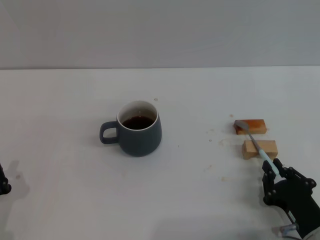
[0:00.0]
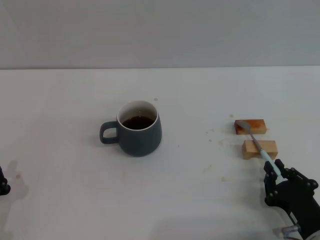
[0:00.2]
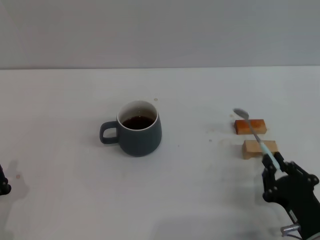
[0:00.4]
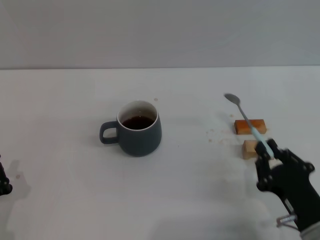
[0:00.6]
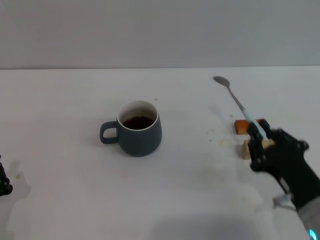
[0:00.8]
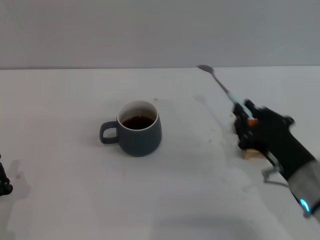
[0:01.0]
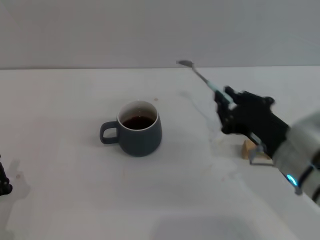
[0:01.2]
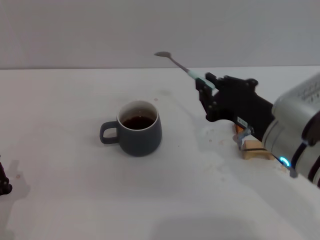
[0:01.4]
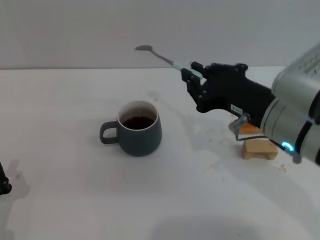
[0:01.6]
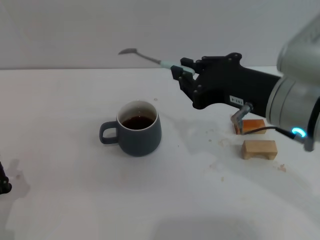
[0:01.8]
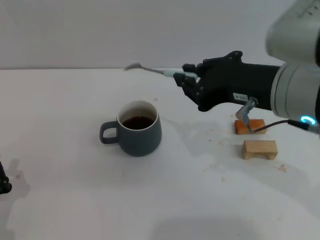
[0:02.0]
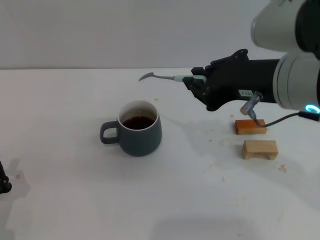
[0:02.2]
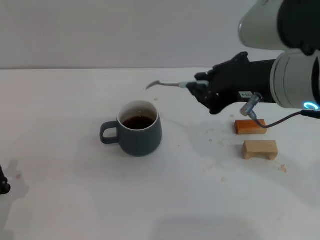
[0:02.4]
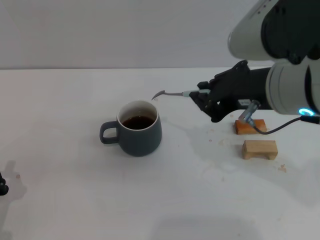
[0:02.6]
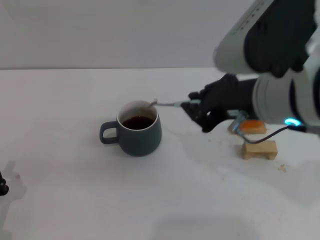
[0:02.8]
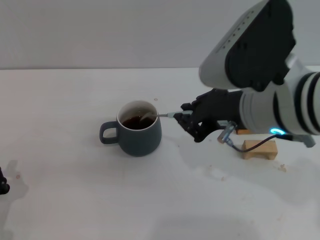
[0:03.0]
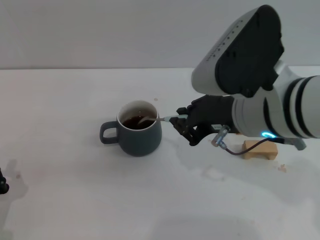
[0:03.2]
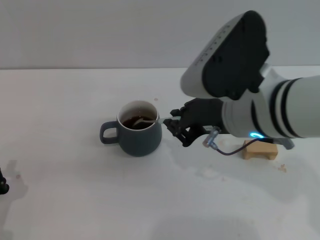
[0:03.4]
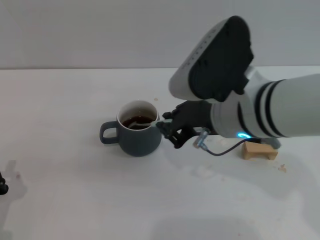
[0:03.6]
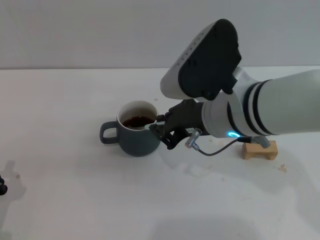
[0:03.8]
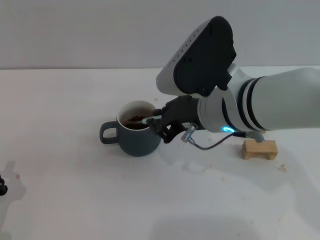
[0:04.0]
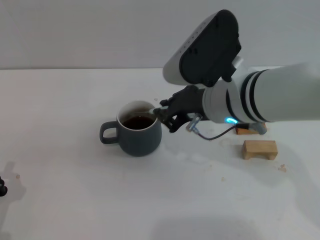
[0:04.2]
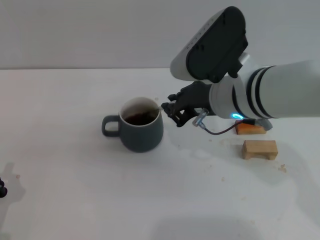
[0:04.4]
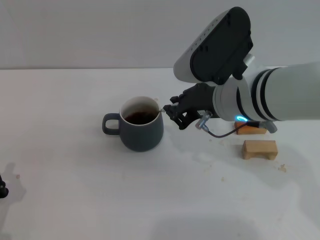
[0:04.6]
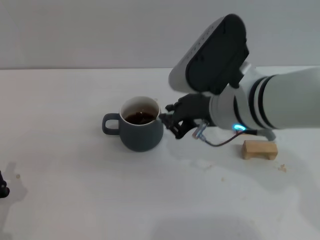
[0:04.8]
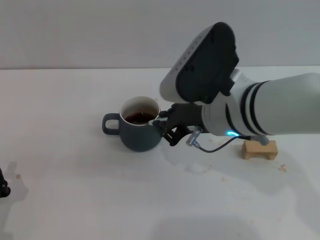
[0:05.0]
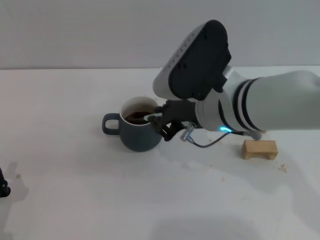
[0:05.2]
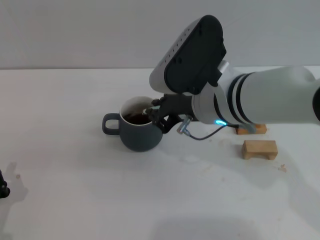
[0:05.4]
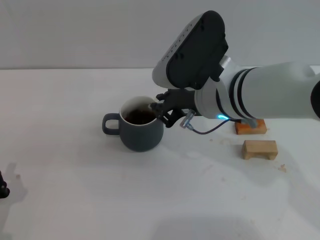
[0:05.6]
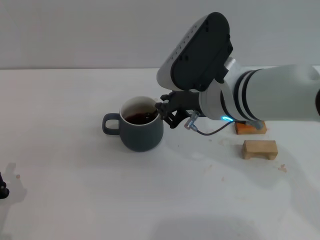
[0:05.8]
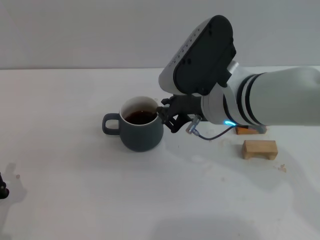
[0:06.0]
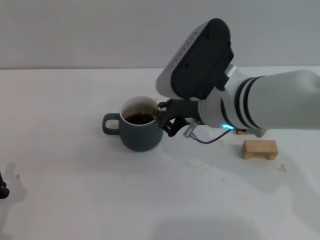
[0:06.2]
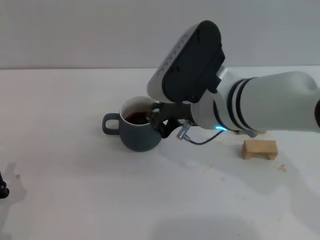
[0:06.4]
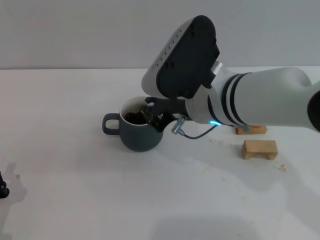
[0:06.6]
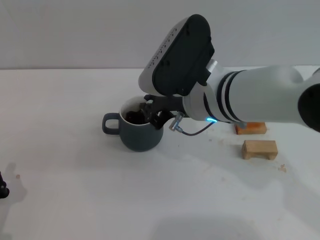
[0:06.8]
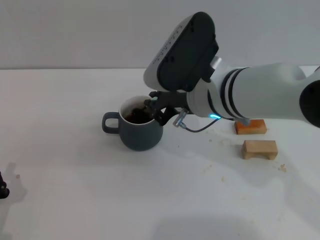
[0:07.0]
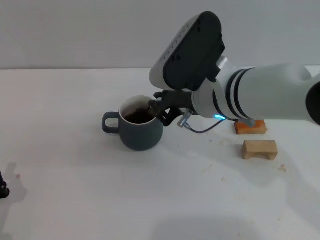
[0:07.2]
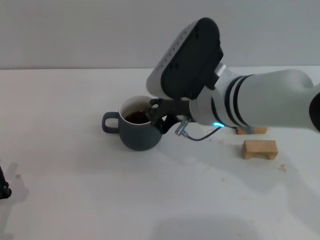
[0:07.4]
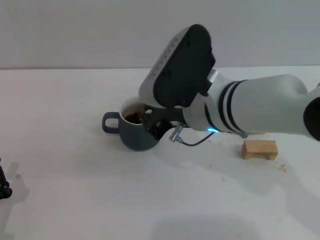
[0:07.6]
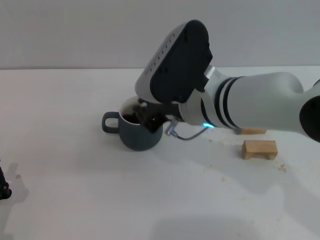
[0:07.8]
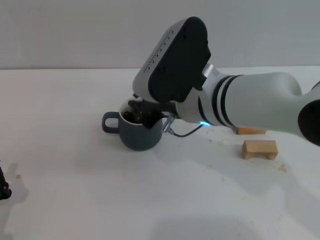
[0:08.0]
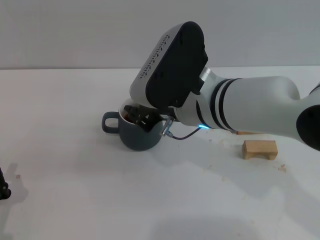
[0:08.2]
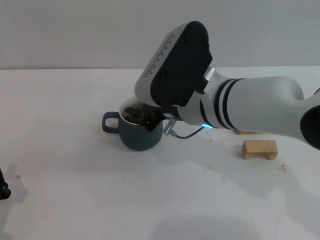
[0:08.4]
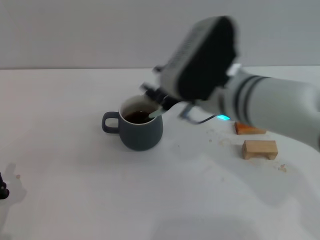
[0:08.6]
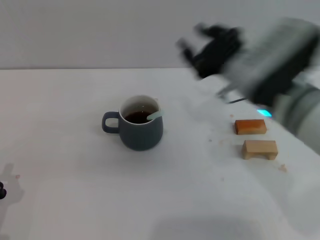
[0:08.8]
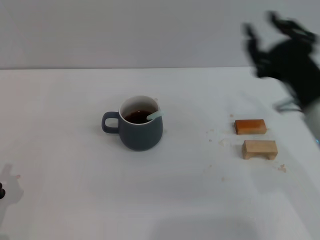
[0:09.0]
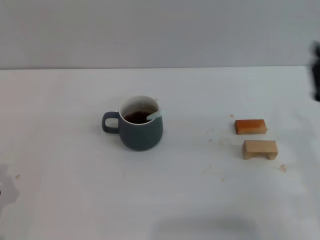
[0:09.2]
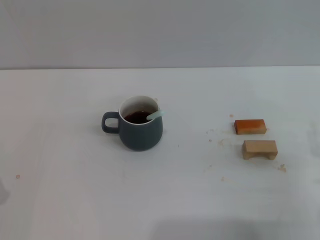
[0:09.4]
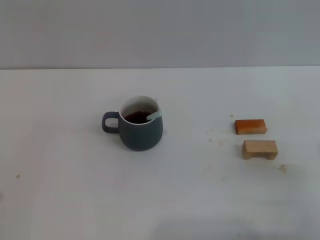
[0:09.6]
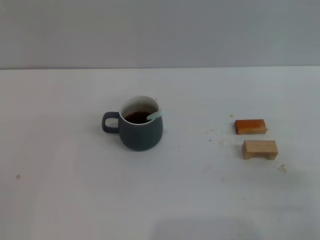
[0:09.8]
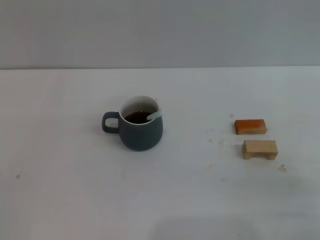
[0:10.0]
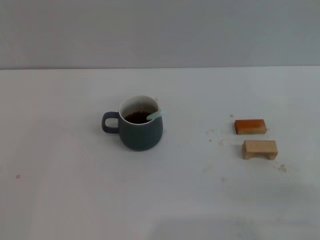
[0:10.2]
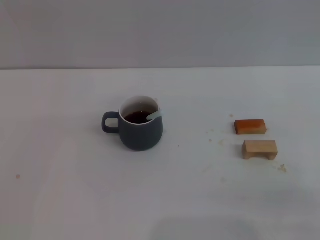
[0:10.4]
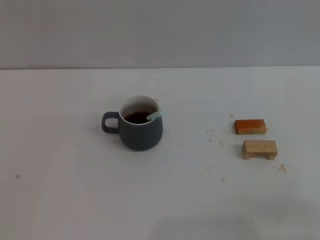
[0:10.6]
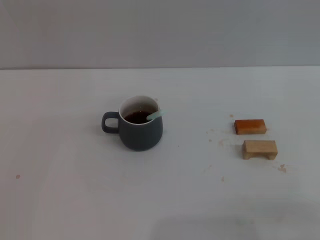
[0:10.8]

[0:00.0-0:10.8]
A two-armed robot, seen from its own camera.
Task of the whole recording: Move the grey cup to the center, lift the blue spoon, stir it three times in the cup, and put the spoon into the cup.
Step, 0:01.2 to 0:08.6: Stir the coffee in the cup with the right gripper.
0:00.0 to 0:01.6: The right gripper moves upward, forward and to the left, approximately 25 cm.
0:01.6 to 0:03.0: The right gripper shifts by about 5 cm.
0:03.0 to 0:04.6: The right gripper shifts by roughly 5 cm.
0:04.6 to 0:07.8: There are only small adjustments of the grippers.
0:07.8 to 0:09.2: The right gripper heads to the right, backward and downward, covering about 25 cm, and opens its fingers.
0:09.2 to 0:10.8: The right gripper shifts approximately 10 cm backward and to the right, and opens.
